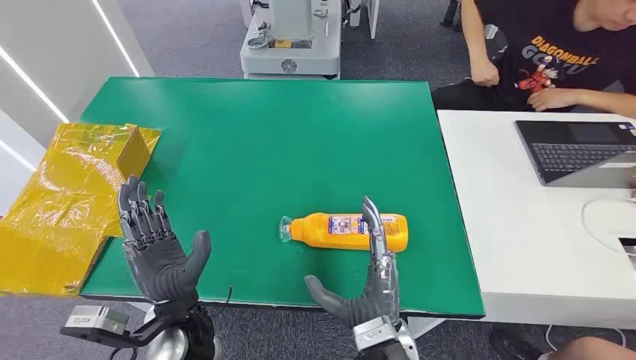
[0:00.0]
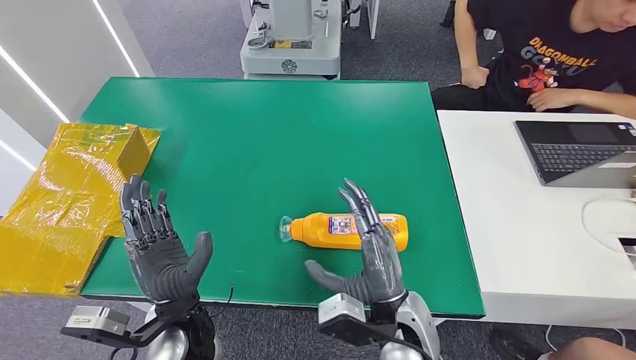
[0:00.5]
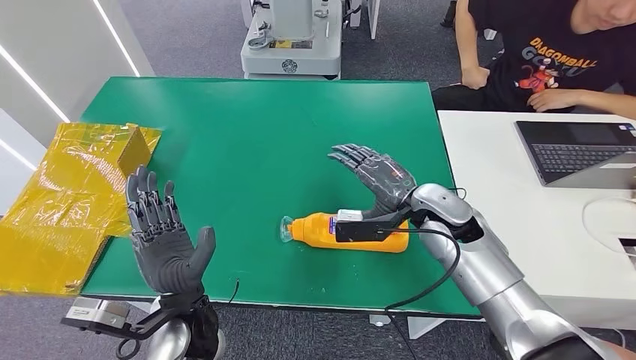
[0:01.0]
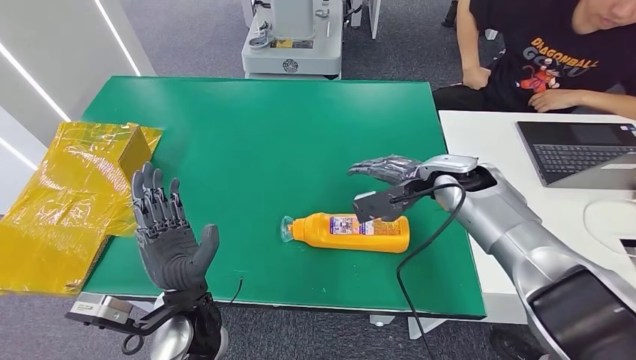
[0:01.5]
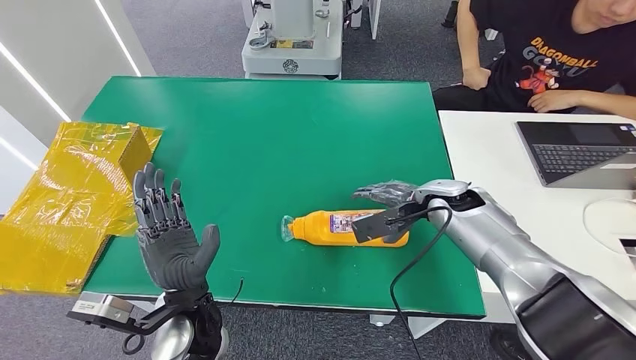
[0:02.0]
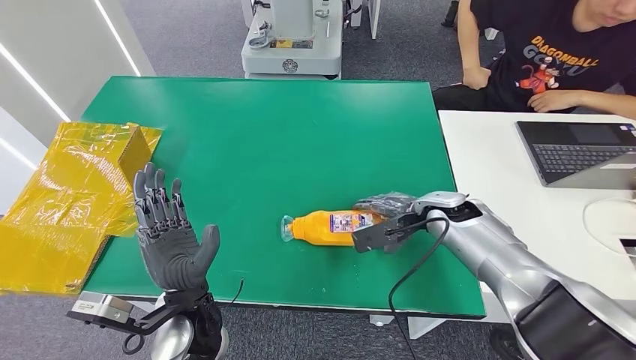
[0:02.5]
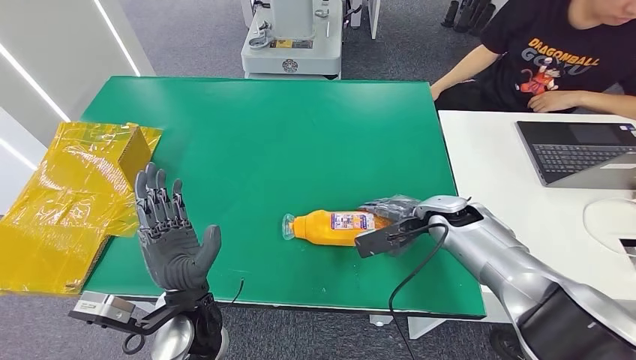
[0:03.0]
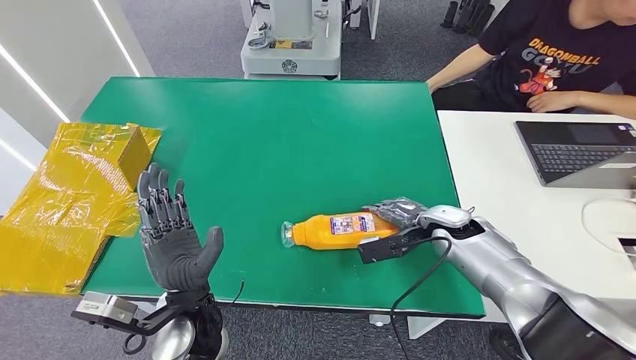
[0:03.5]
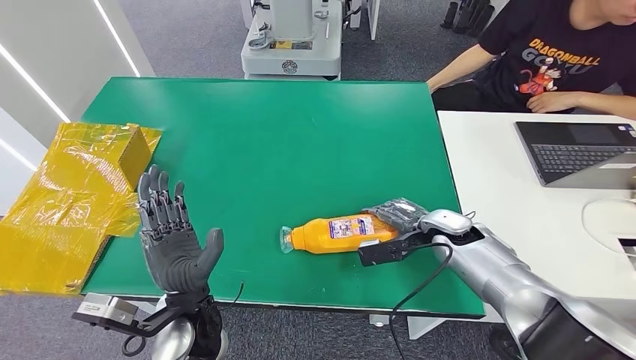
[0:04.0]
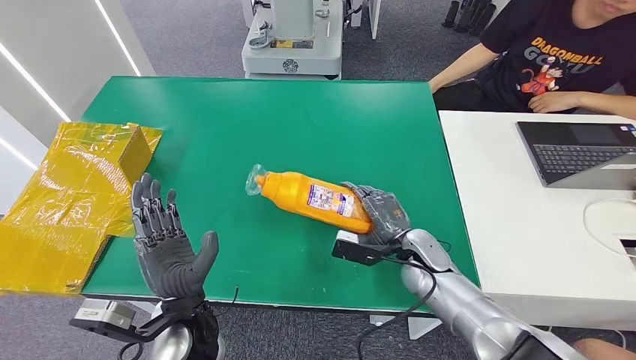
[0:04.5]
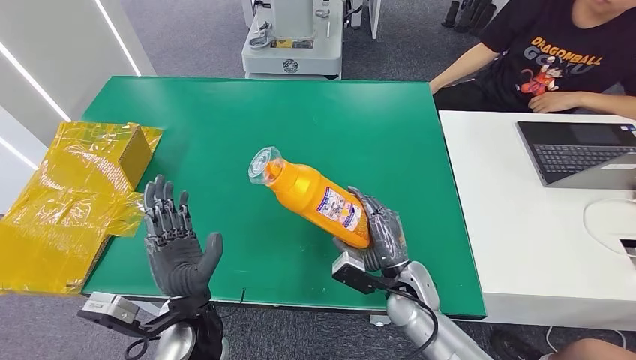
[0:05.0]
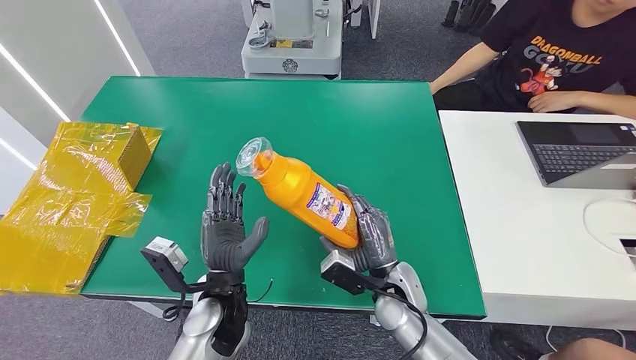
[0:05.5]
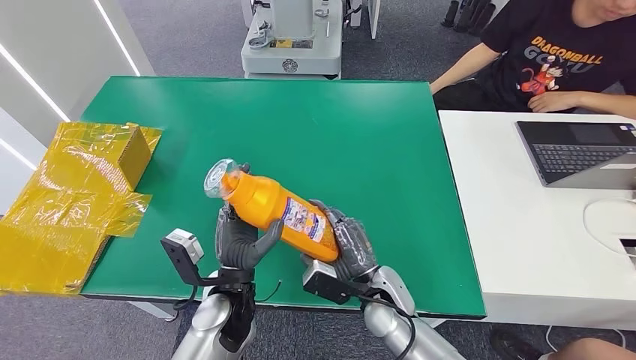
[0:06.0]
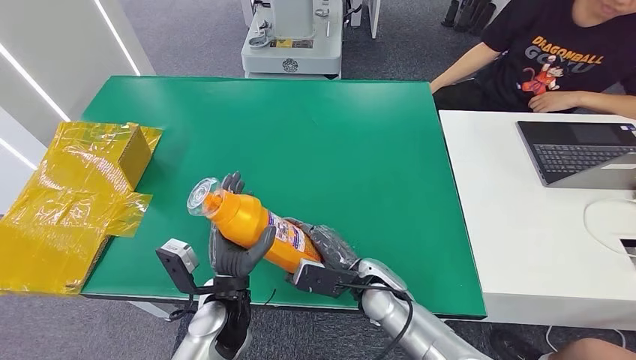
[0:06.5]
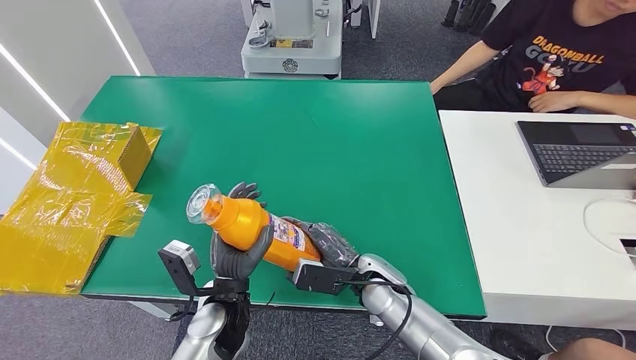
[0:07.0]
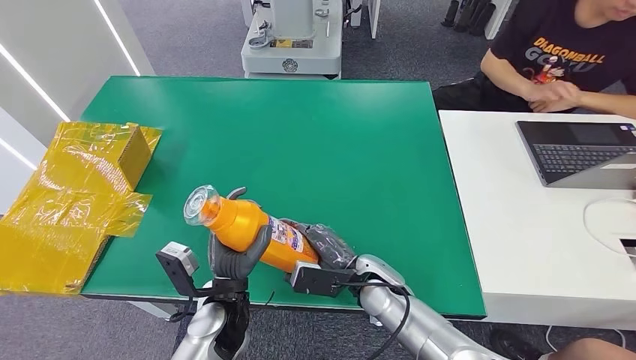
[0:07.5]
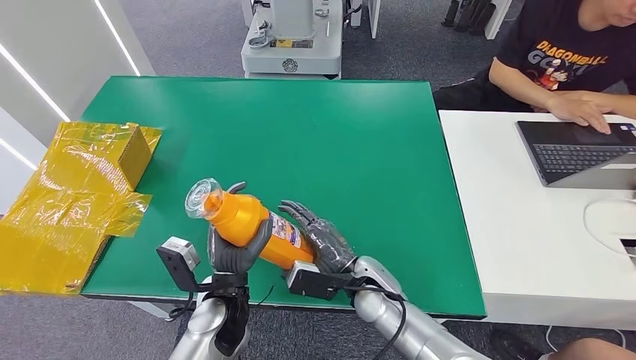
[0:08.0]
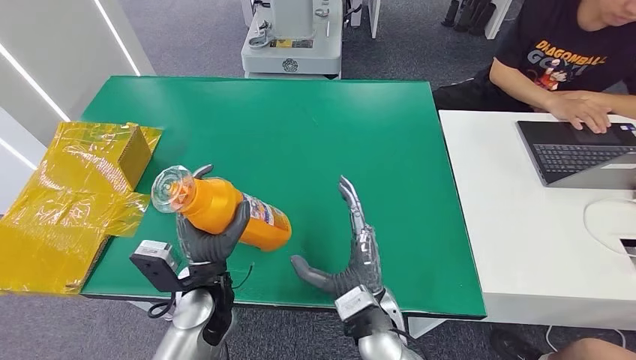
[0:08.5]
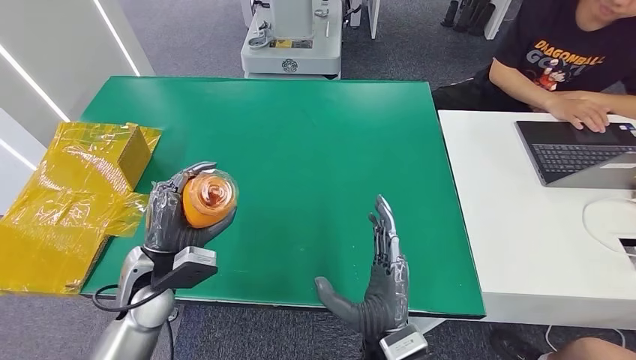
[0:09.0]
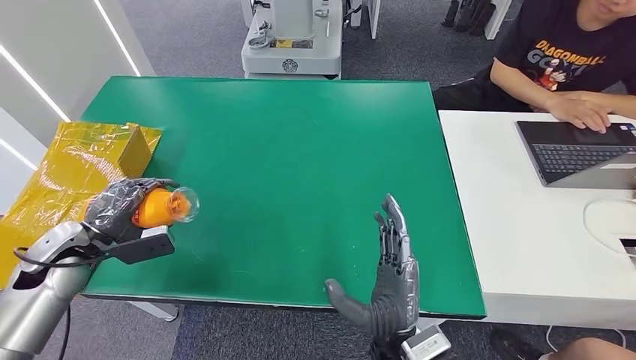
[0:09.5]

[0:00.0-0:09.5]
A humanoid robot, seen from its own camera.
Step, 0:00.0 to 0:05.0: Pick up the bottle from the table.
0:02.0 to 0:04.0: The right hand travels downward by some 5 cm.
0:07.5 to 0:09.5: The right hand goes some 15 cm backward and upward. The left hand travels to the left by some 30 cm.

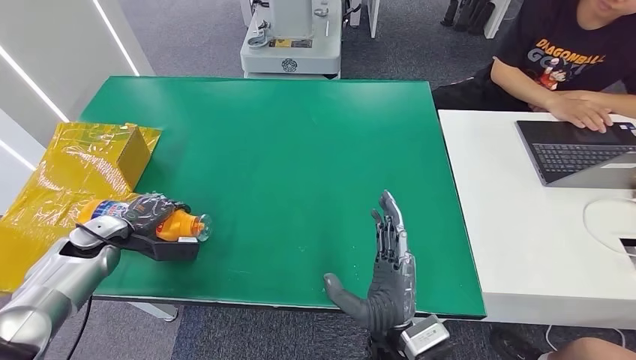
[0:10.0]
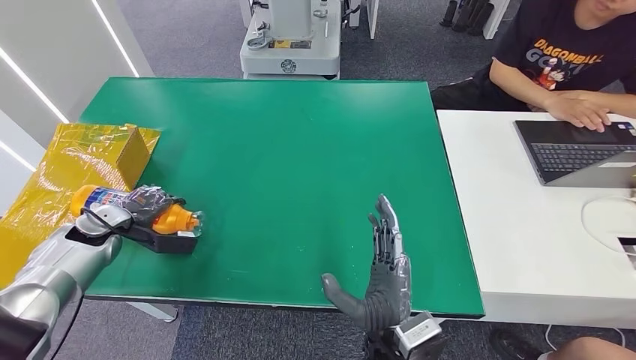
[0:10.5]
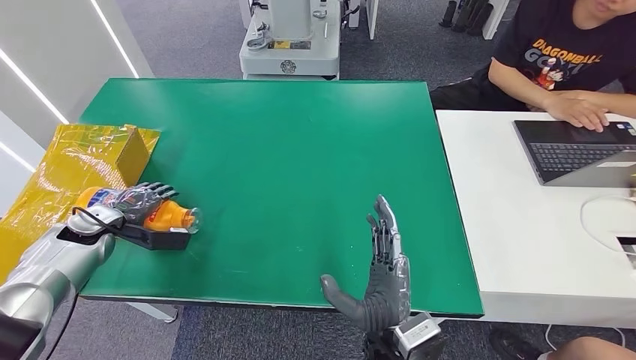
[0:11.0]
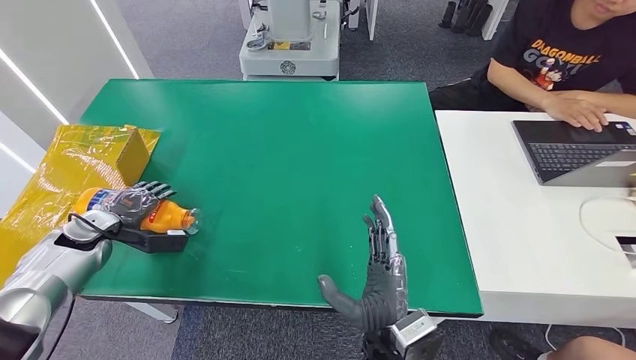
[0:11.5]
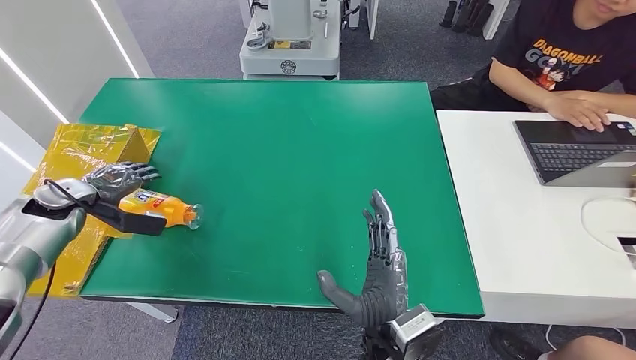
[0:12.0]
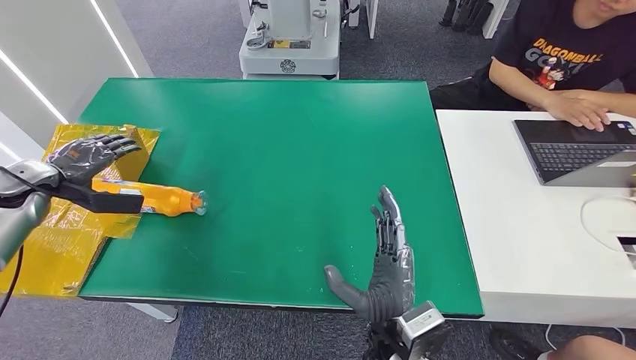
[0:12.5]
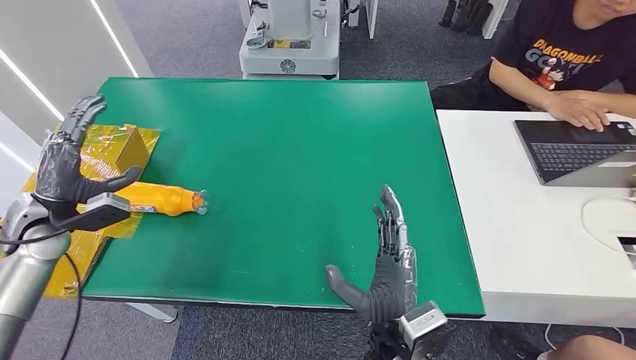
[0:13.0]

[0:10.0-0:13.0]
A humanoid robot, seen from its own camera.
Step, 0:10.0 to 0:13.0: Turn the bottle to the front side.
0:10.0 to 0:11.5: There are only small adjustments of the hands.
0:11.5 to 0:13.0: The left hand moves upward, approximately 10 cm.

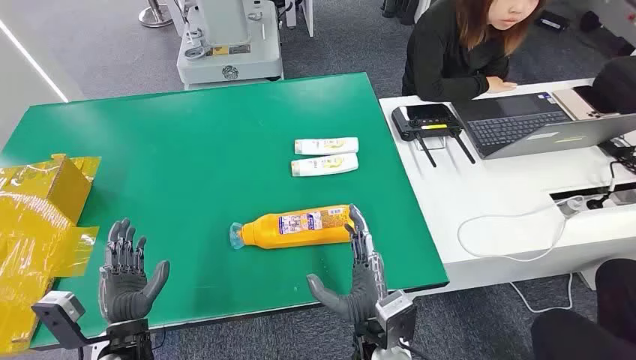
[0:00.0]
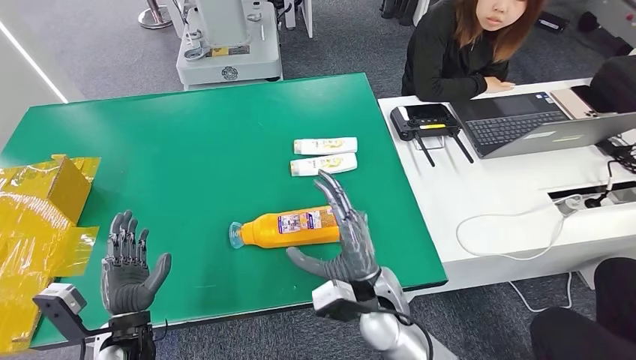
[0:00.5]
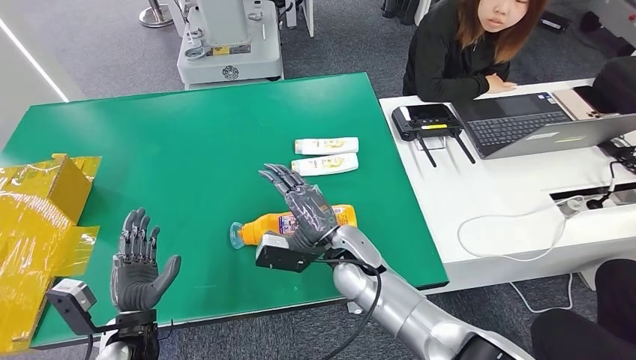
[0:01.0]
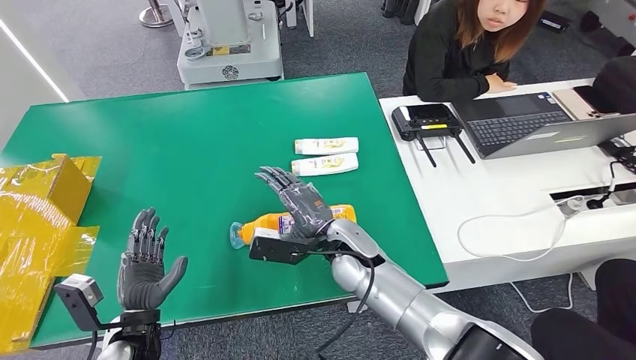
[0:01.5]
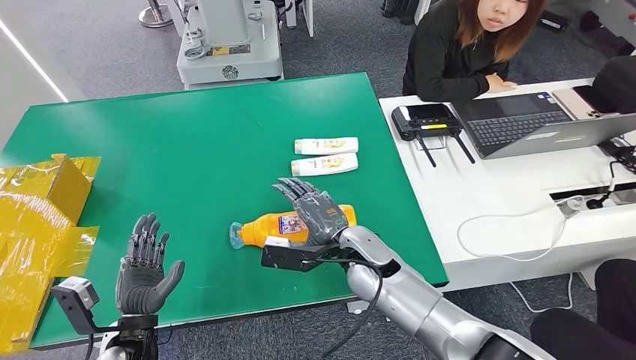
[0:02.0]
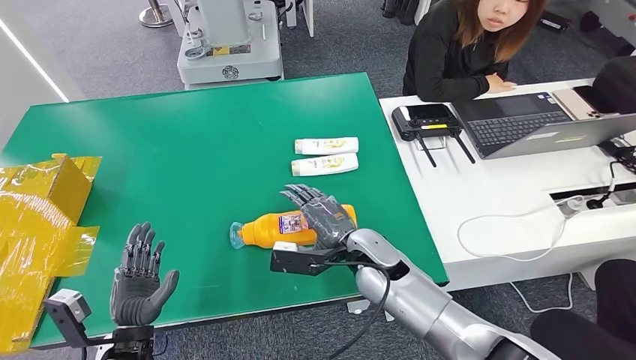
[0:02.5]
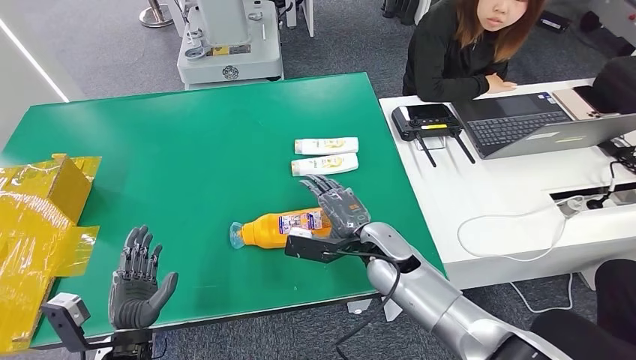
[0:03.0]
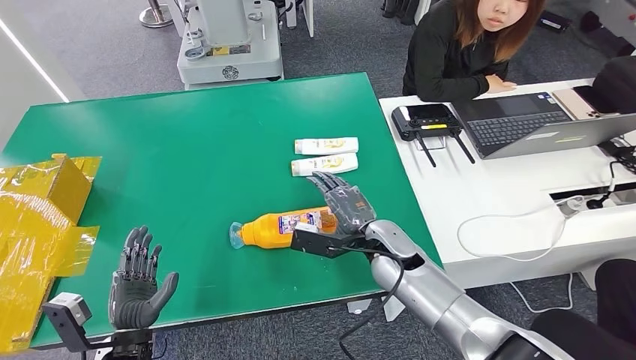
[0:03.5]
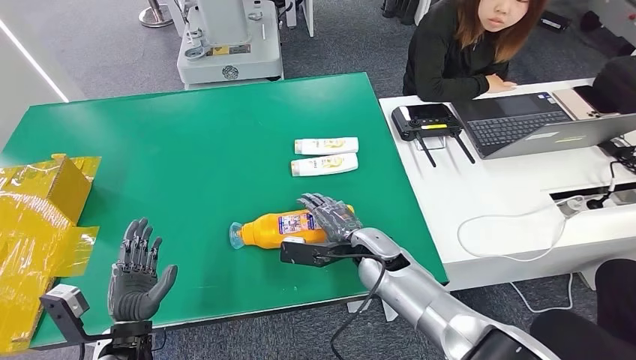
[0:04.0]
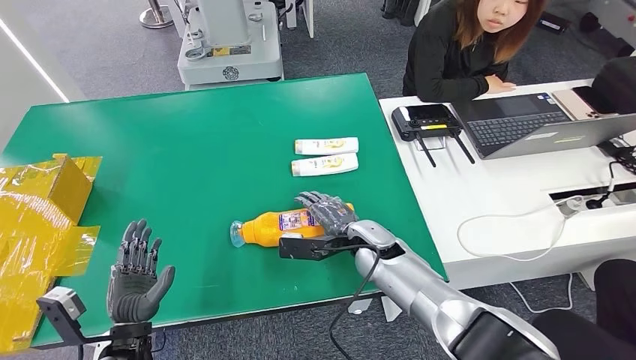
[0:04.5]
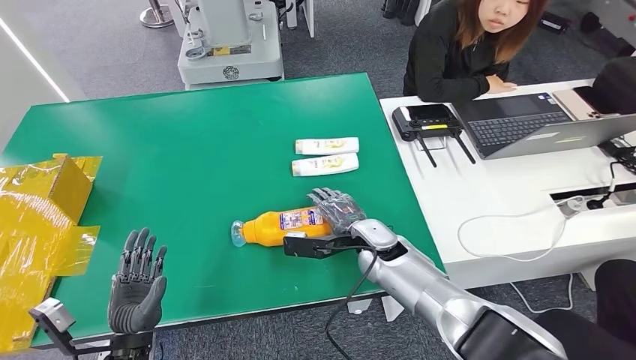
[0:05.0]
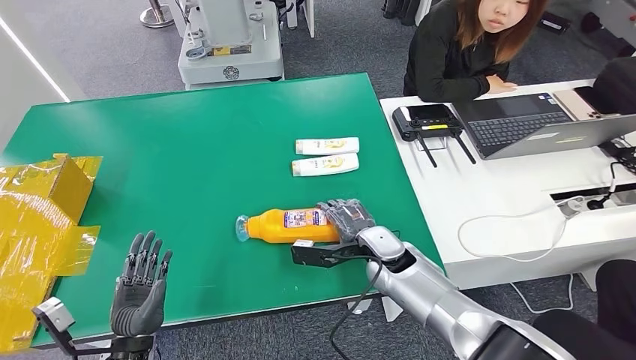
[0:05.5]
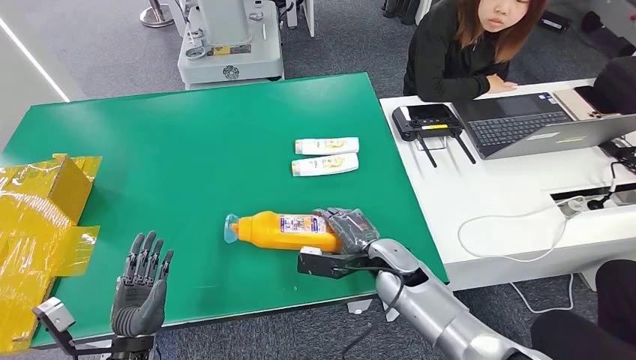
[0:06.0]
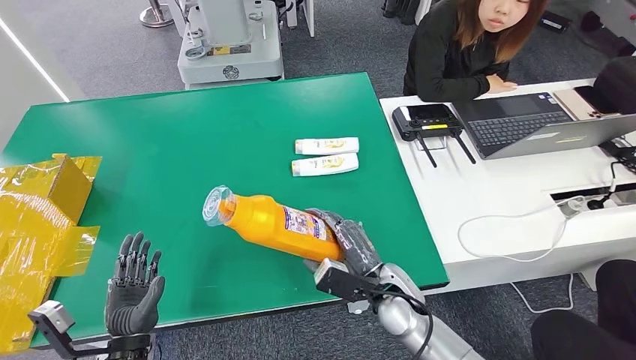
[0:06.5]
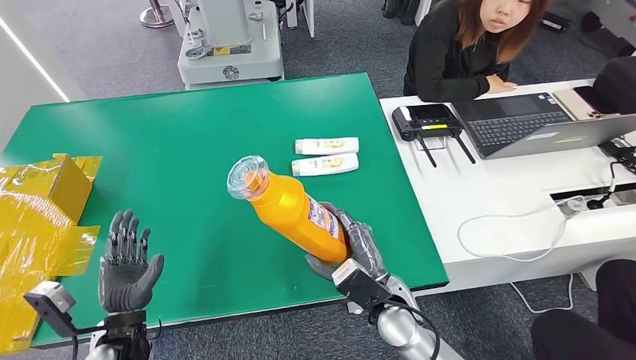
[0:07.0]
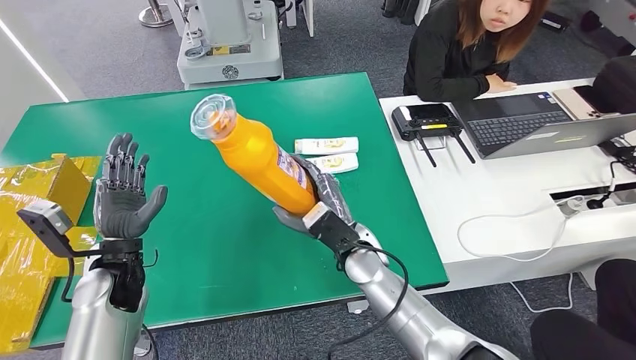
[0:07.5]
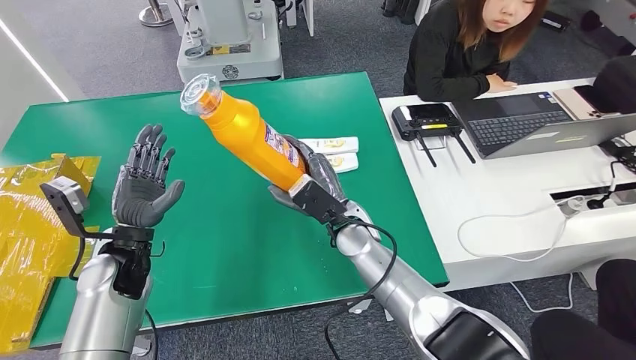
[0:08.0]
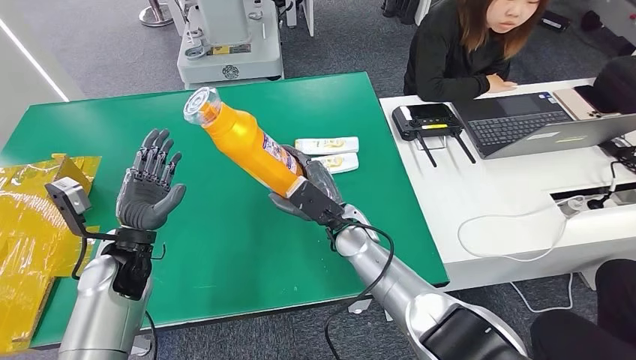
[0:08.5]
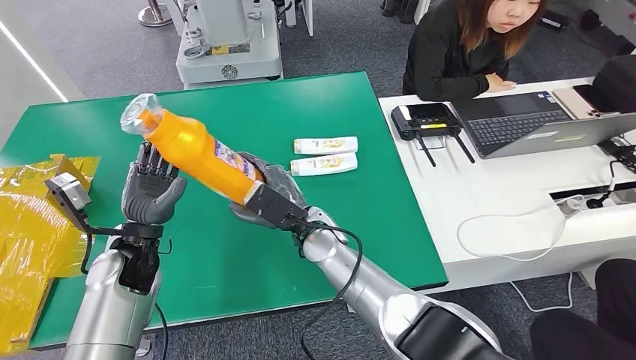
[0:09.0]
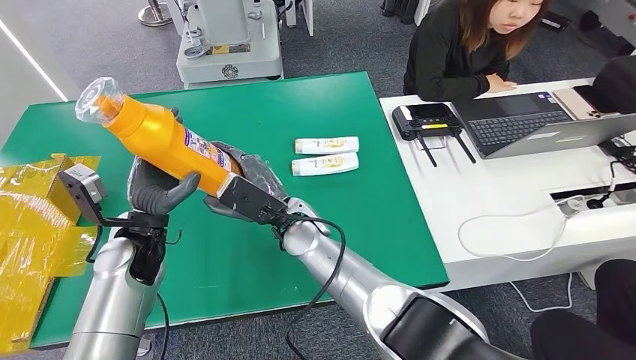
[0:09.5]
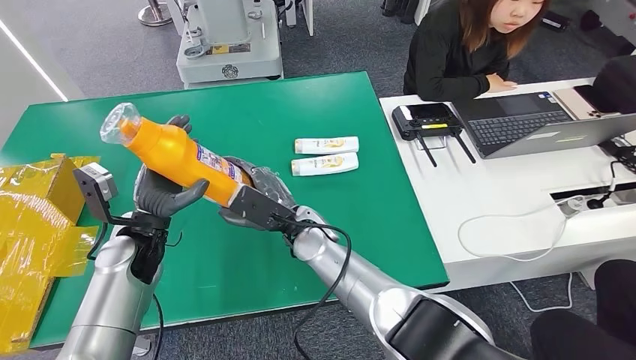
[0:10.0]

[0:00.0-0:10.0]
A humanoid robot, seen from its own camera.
Step, 0:00.0 to 0:07.0: Pick up the bottle from the table.
0:02.0 to 0:04.0: The hands make only small movements.
0:04.0 to 0:06.0: The hands move only a little.
0:06.0 to 0:08.0: The left hand is displaced forward and upward by roughly 15 cm. The right hand moves to the left, forward and upward, approximately 10 cm.
0:08.0 to 0:10.0: The right hand moves to the left, roughly 10 cm.
